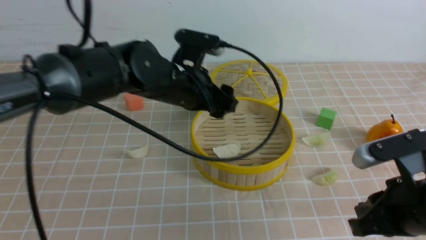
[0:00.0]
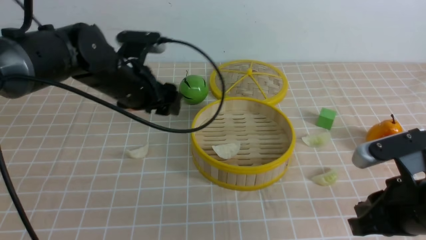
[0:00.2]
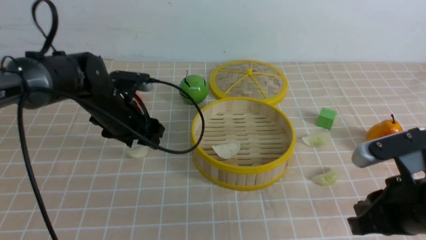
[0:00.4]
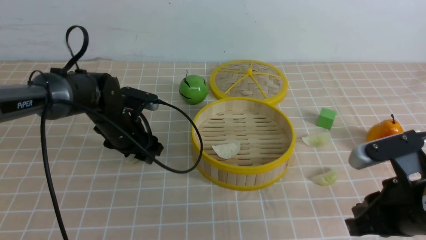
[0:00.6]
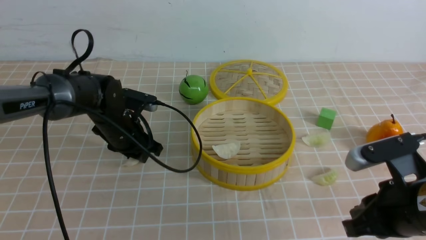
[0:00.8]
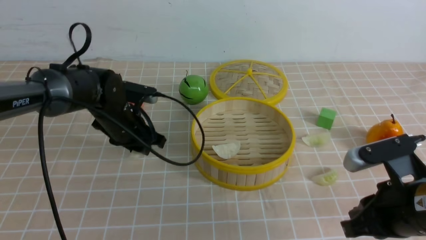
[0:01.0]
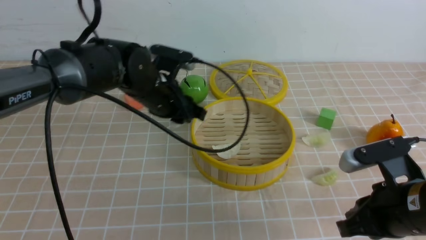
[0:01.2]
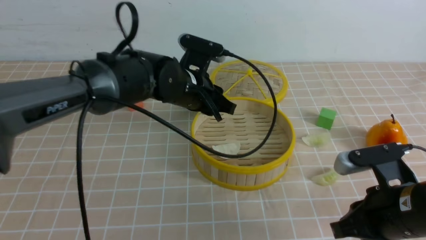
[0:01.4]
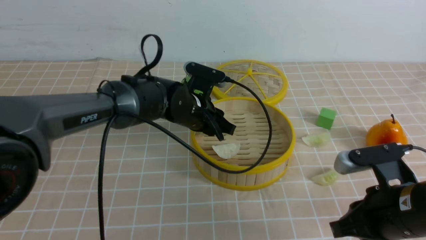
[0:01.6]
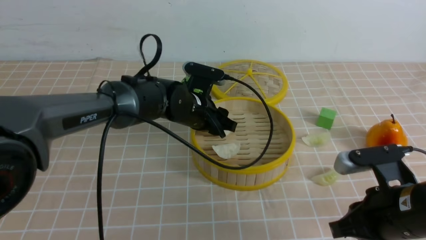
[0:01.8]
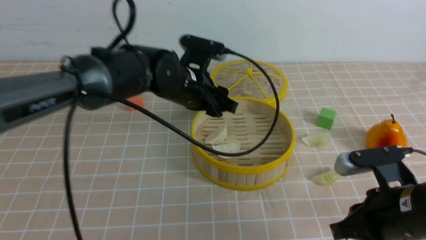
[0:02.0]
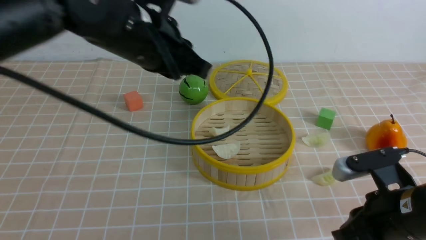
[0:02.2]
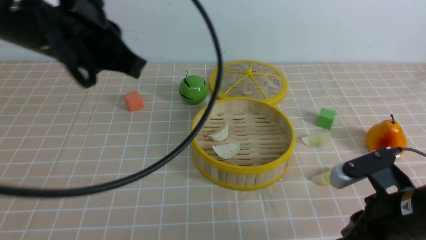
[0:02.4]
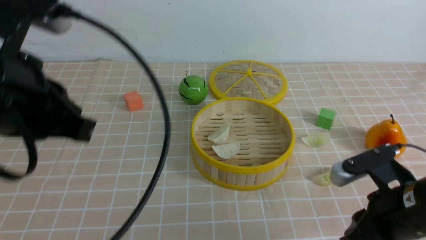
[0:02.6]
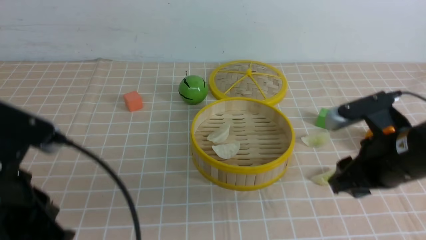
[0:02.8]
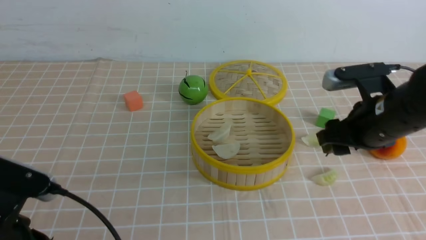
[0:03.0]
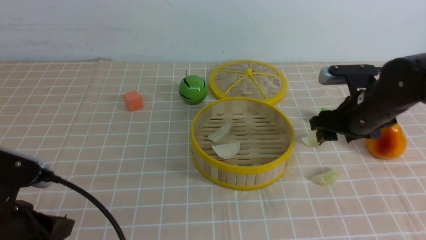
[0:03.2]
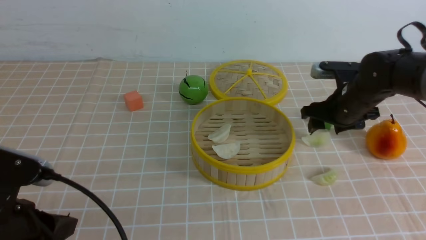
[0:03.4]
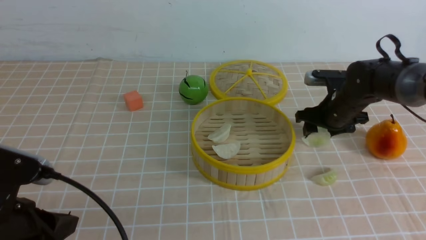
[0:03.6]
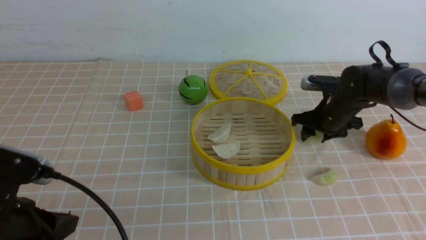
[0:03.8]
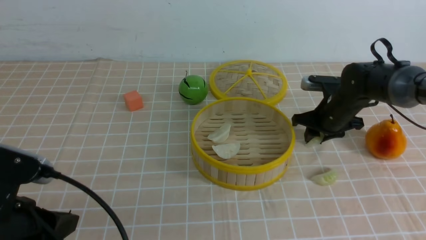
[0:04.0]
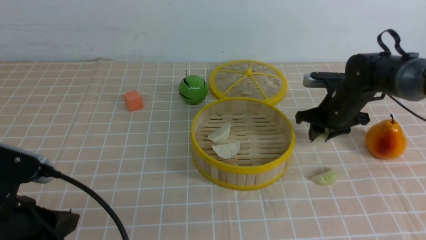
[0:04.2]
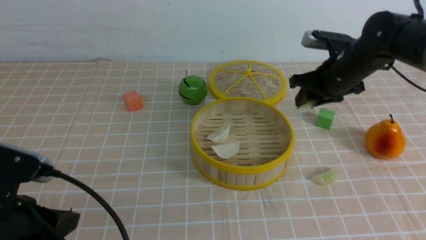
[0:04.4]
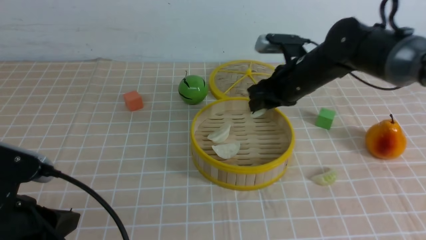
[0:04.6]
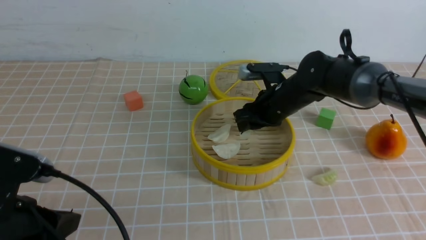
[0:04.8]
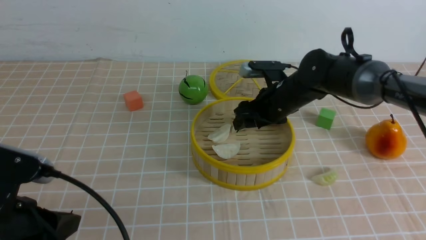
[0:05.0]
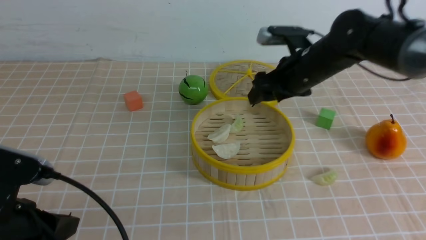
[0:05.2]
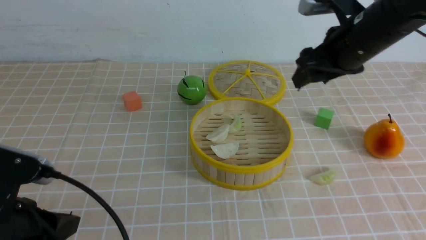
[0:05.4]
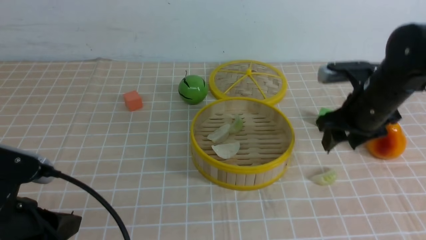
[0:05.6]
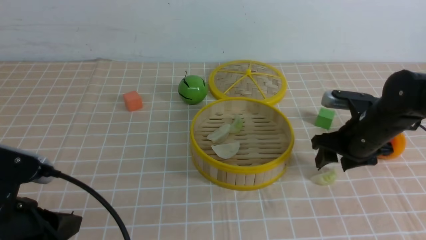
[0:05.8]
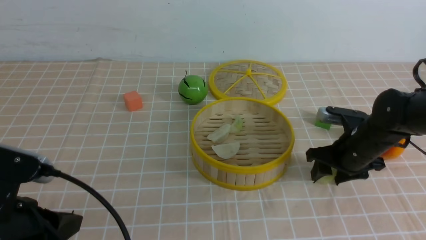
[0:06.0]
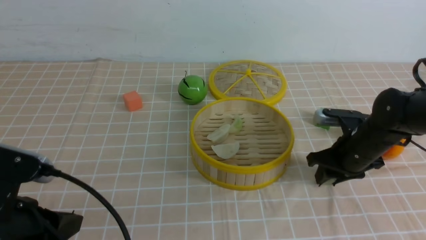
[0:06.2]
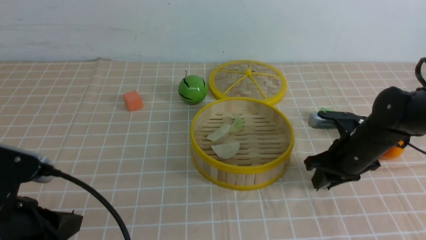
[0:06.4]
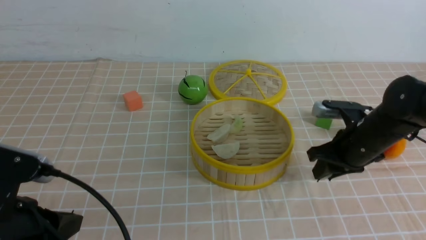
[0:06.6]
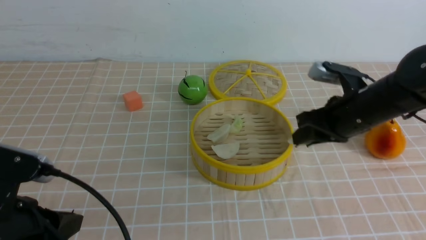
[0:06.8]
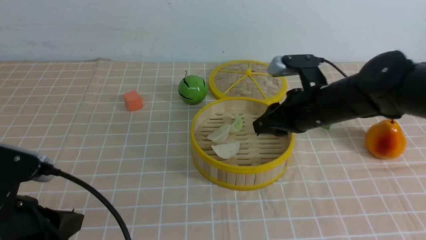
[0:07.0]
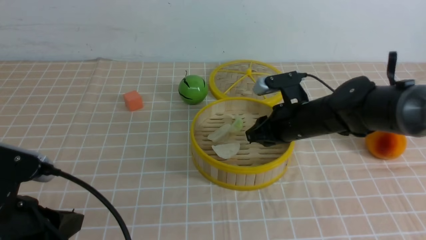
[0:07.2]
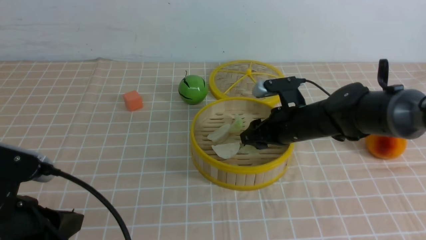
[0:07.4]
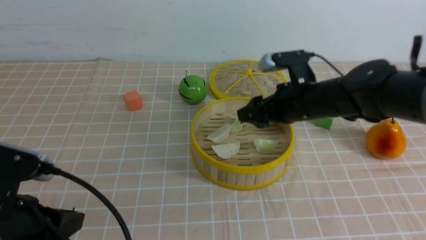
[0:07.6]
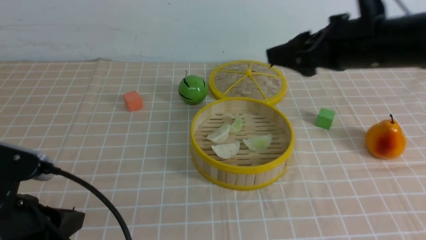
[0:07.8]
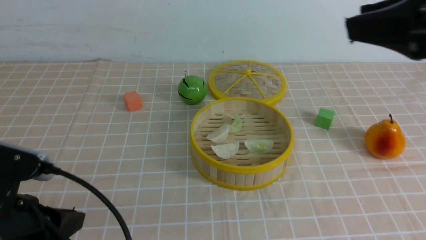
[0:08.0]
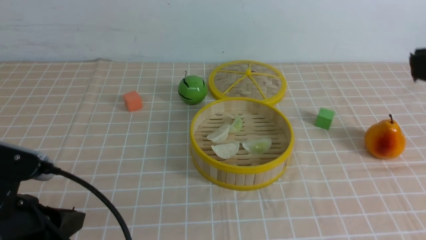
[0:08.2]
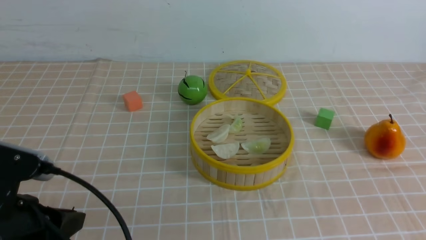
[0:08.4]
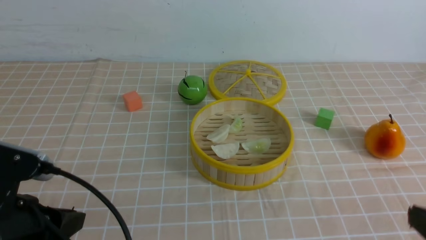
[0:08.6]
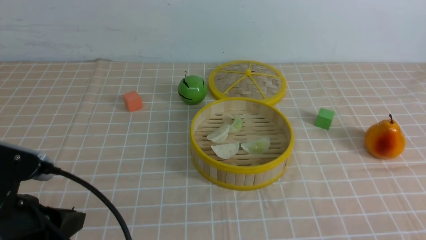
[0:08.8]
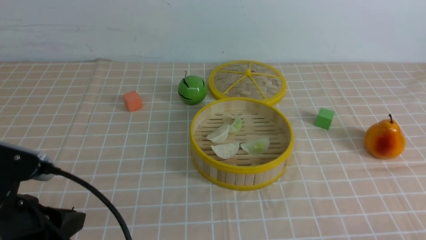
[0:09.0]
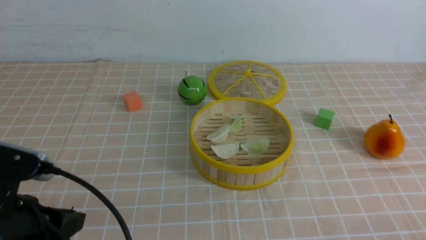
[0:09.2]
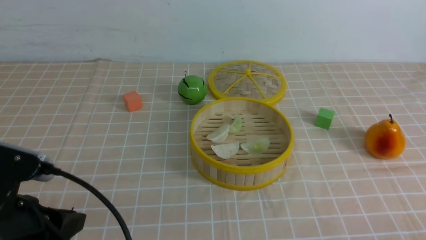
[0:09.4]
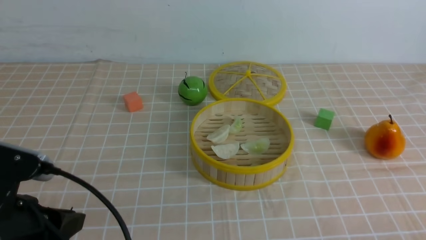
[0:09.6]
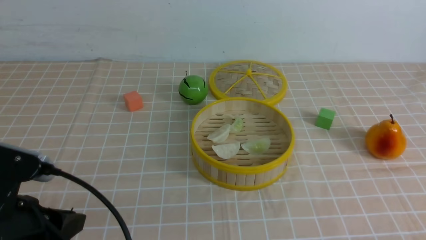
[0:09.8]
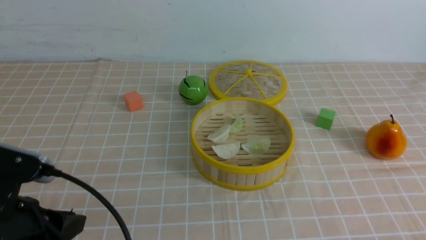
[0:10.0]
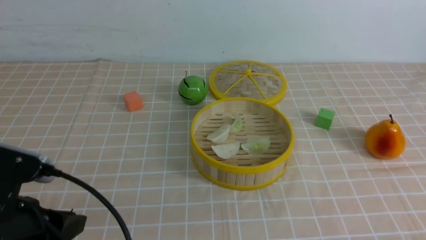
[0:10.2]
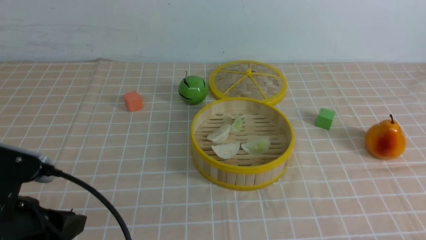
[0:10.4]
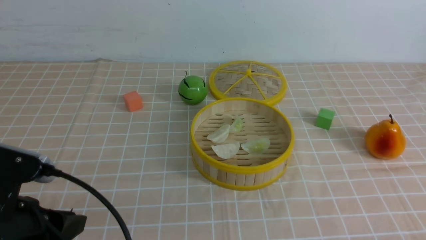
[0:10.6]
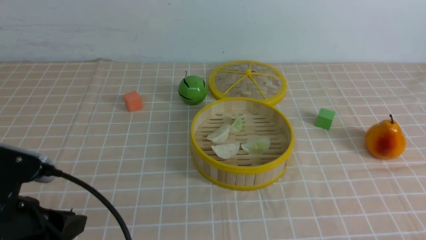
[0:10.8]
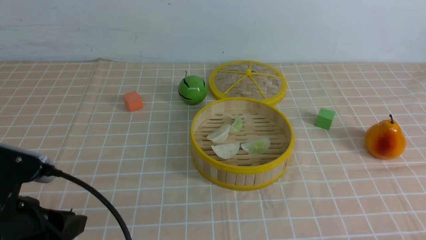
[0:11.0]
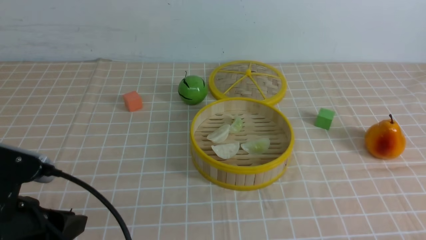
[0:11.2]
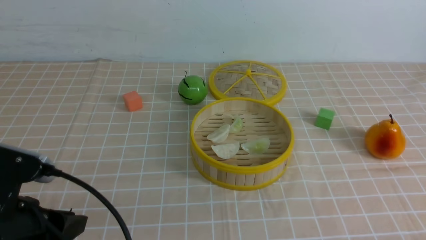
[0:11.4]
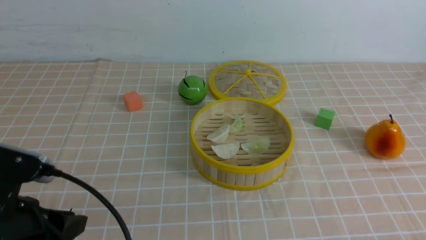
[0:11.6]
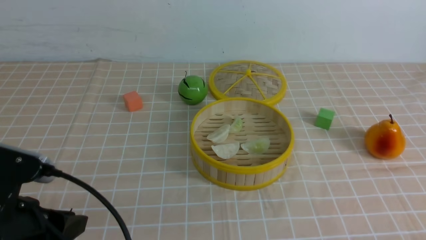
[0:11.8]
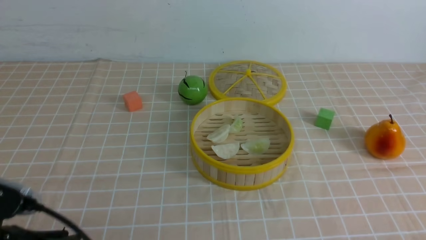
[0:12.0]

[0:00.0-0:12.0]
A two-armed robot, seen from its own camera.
Task of the whole recording: put the dumplings into the steamer on the table with the brown tablecloth.
Step, 0:00.2 to 0:00.8: use the left arm to grab a dumpling.
Step, 0:01.0 to 0:02.0: use the left arm to put the dumpling into the steamer.
Step, 0:02.2 to 0:04.0: use the right arm to grab a dumpling.
Step, 0:04.2 to 0:05.2: use the right arm to put the dumpling into the steamer.
Step, 0:05.4 to 0:06.2: use the right arm to grab a dumpling.
Step, 0:06.4 to 0:07.6: use the right arm to put the dumpling into the steamer.
0:00.0 to 0:01.6: The left gripper goes to the left and returns, some 10 cm each way, and closes.
0:01.6 to 0:03.0: The left gripper heads backward and to the left, covering some 35 cm, and closes its fingers. Meanwhile the right gripper goes roughly 10 cm forward and upward, and opens its fingers.
0:03.0 to 0:04.4: The right gripper heads forward, covering roughly 15 cm, and closes its fingers.
0:04.4 to 0:06.0: The right gripper heads backward and downward, covering some 10 cm.
0:06.0 to 0:07.6: The right gripper travels upward and to the left by about 15 cm, and closes, then reopens.
0:07.6 to 0:09.0: The right gripper moves backward, to the right and downward, some 35 cm, and closes.
0:10.4 to 0:12.0: The grippers make only small movements.

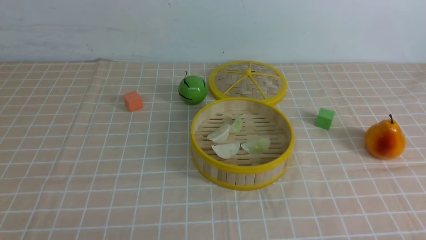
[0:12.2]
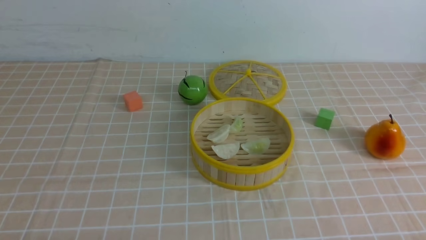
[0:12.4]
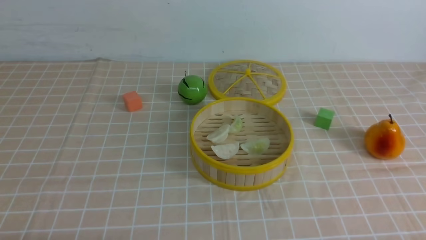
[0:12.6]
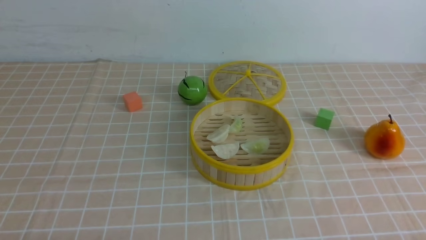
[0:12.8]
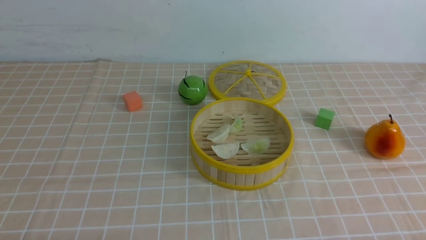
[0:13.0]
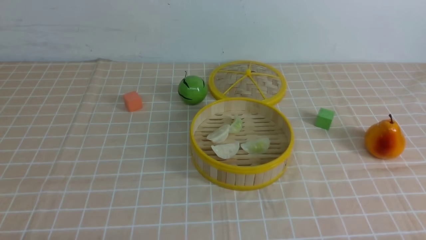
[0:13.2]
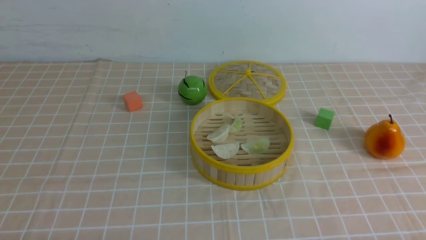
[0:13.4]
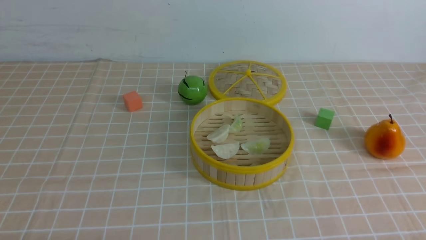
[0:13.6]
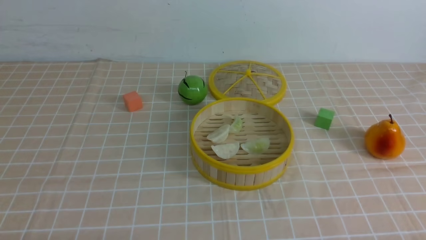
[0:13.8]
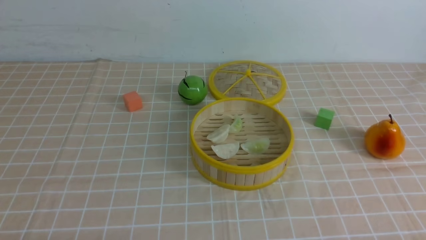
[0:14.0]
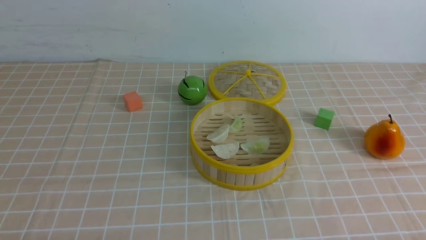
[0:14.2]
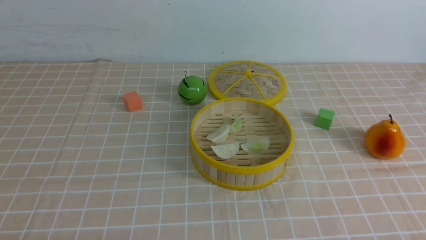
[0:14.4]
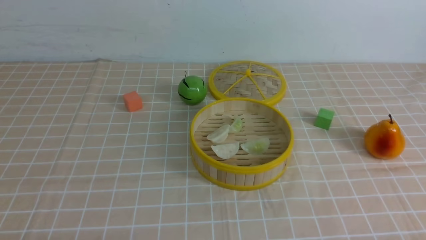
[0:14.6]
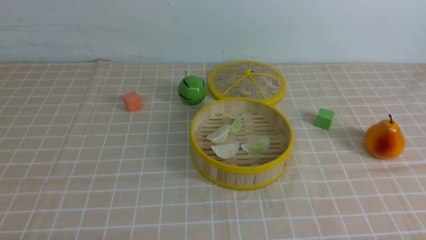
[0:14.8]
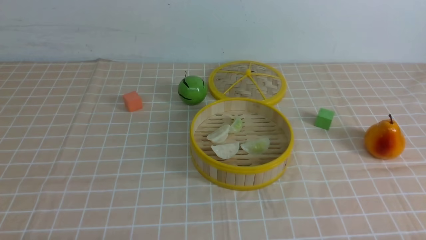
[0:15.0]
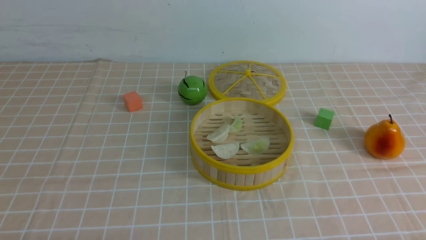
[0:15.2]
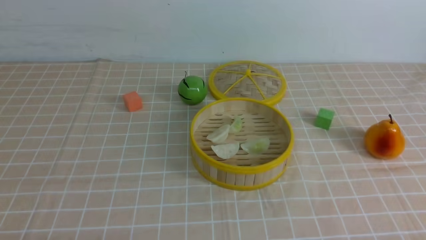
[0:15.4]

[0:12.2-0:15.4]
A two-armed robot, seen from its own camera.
Task of the whole recording: put the dumplings into the steamer on the table with the brown tablecloth.
0:13.8 to 0:15.4: Both grippers stay about where they are.

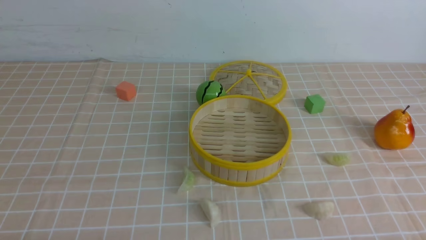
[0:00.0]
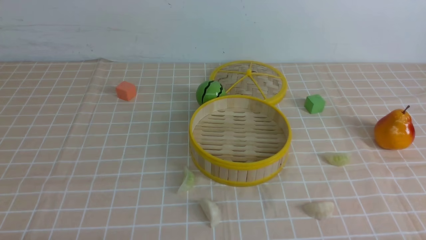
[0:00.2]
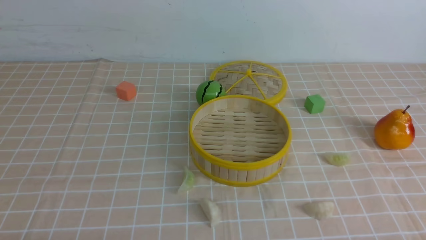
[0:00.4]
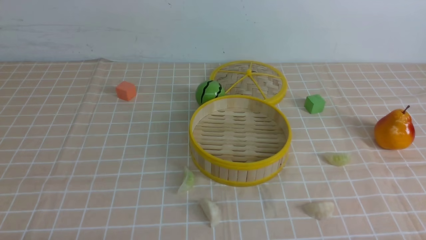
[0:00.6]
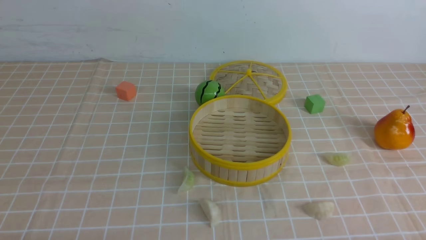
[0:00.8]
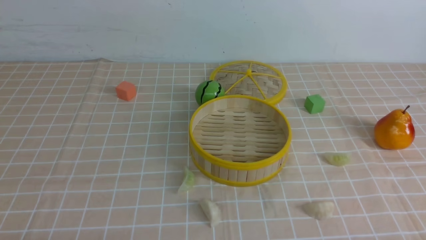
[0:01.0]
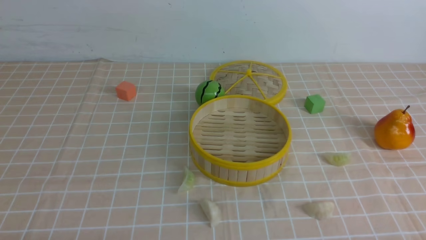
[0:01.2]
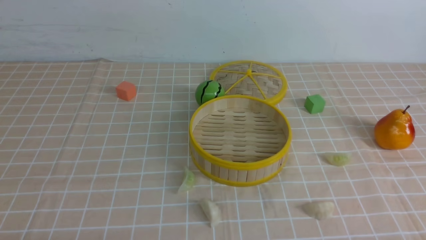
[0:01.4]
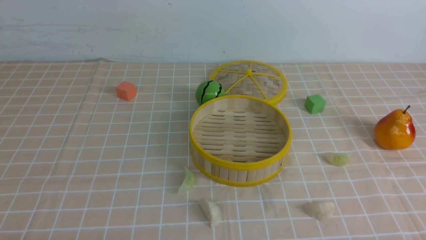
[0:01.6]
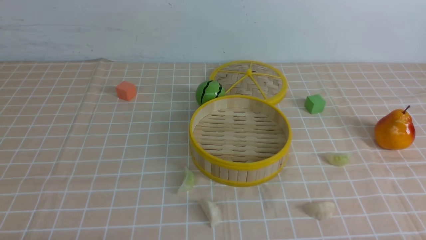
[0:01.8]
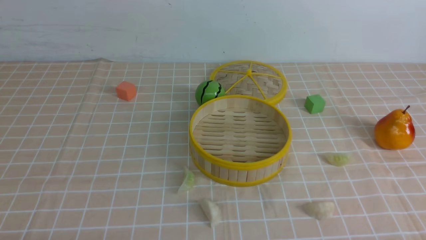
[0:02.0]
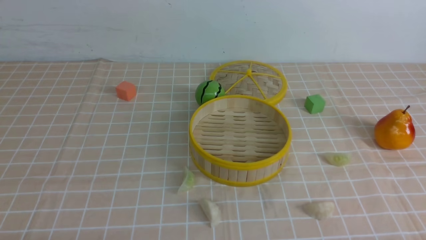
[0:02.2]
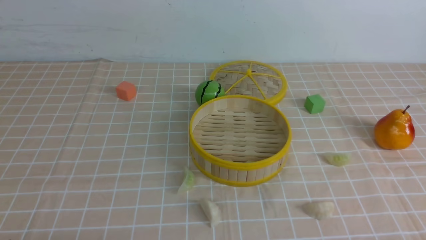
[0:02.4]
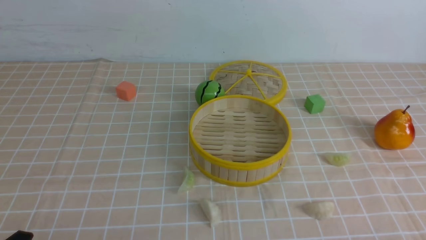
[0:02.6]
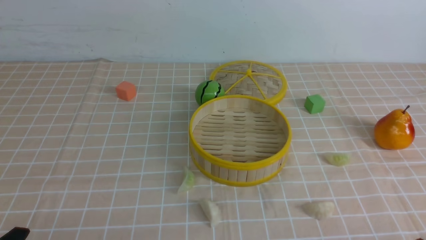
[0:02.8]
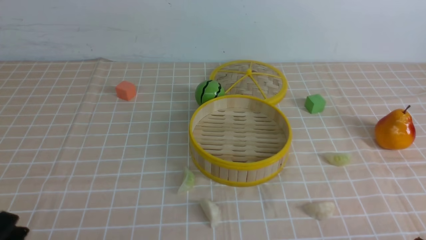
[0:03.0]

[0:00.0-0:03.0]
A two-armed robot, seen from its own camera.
Task of the whole recording: put the dumplings into the steamer on the table with the brown tablecloth.
0:00.0 to 0:01.6: Both grippers stay put.
